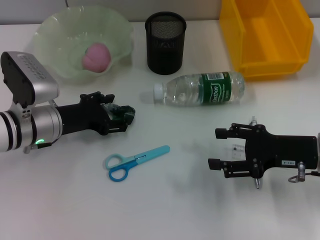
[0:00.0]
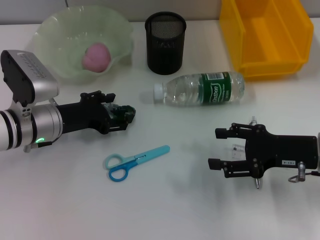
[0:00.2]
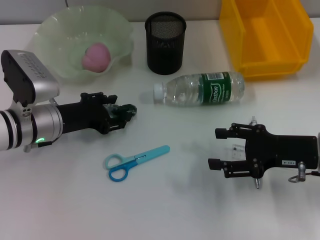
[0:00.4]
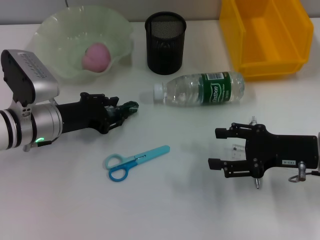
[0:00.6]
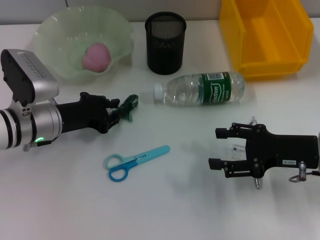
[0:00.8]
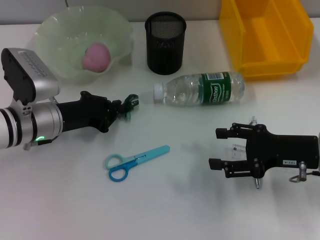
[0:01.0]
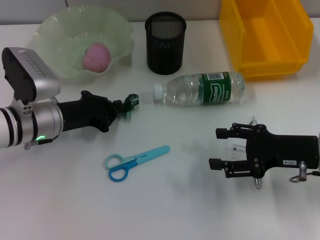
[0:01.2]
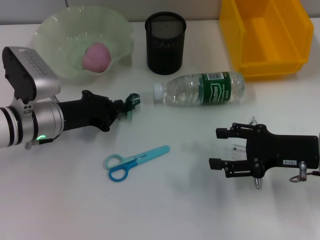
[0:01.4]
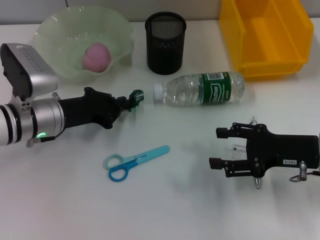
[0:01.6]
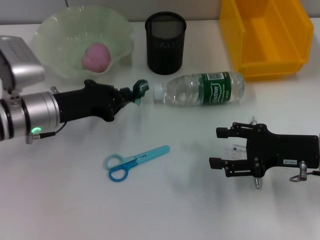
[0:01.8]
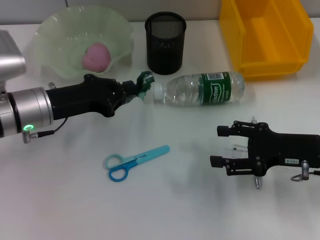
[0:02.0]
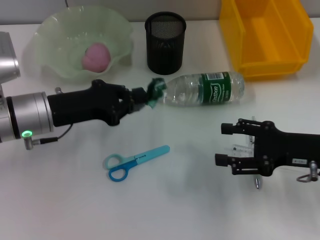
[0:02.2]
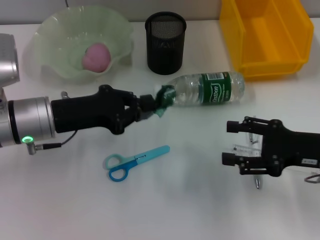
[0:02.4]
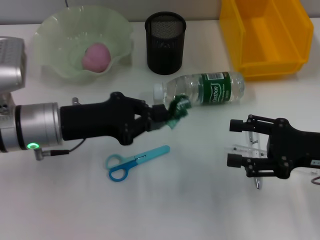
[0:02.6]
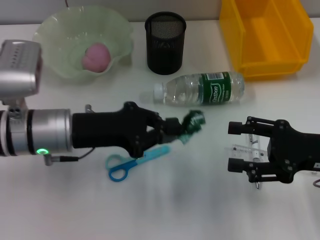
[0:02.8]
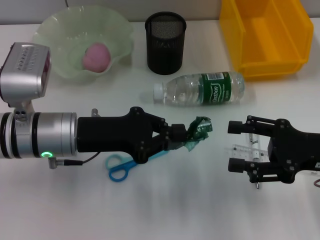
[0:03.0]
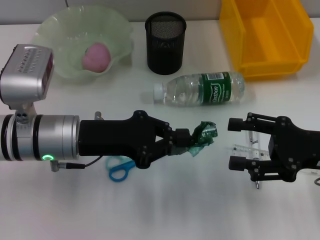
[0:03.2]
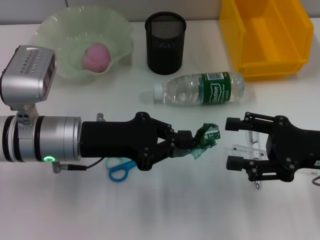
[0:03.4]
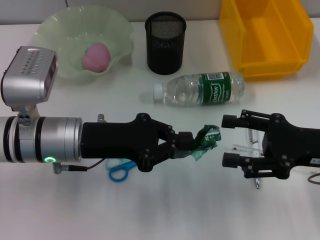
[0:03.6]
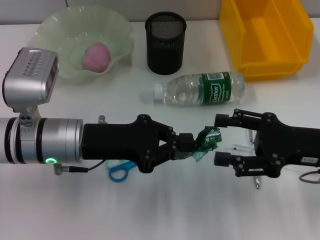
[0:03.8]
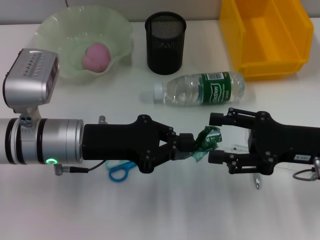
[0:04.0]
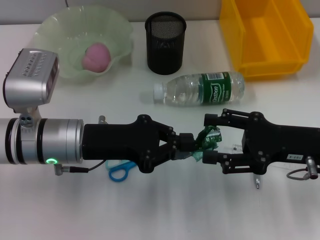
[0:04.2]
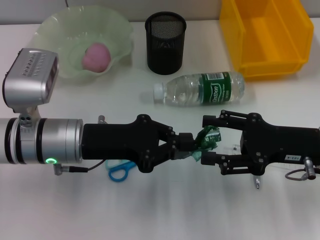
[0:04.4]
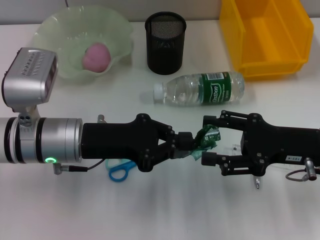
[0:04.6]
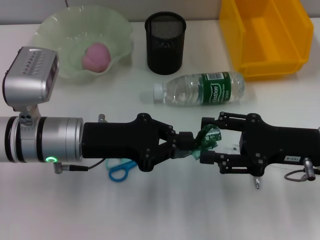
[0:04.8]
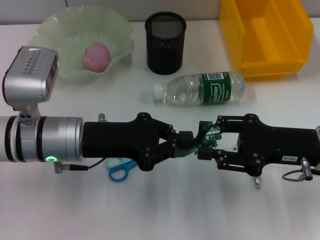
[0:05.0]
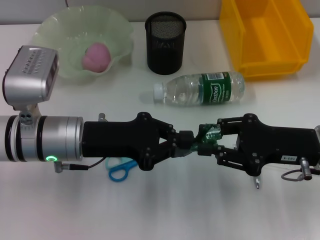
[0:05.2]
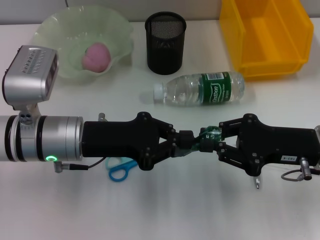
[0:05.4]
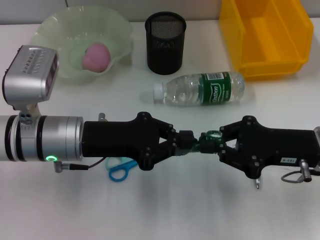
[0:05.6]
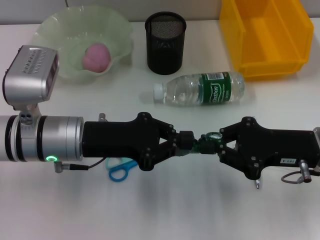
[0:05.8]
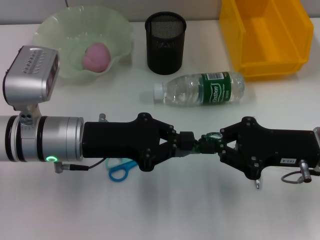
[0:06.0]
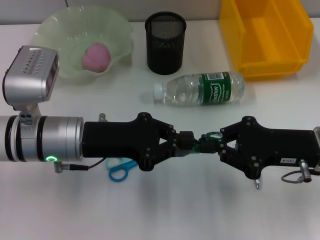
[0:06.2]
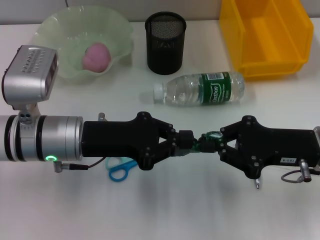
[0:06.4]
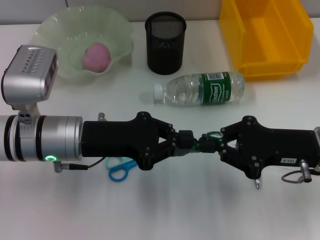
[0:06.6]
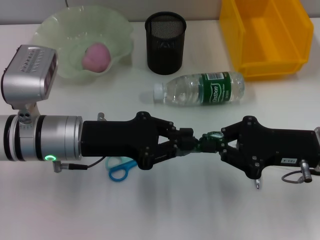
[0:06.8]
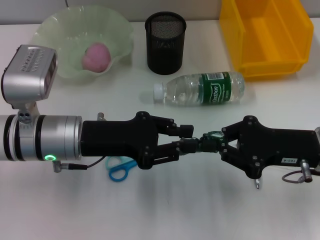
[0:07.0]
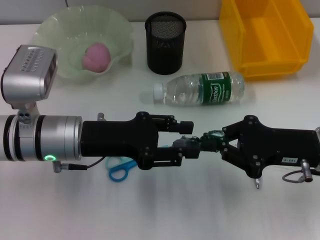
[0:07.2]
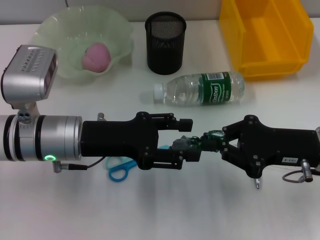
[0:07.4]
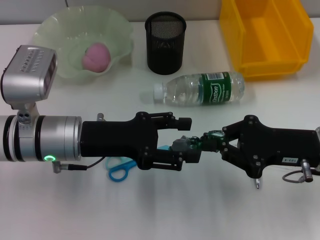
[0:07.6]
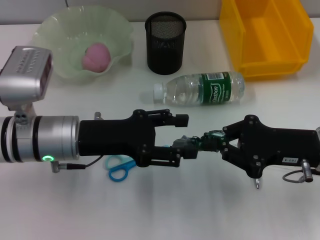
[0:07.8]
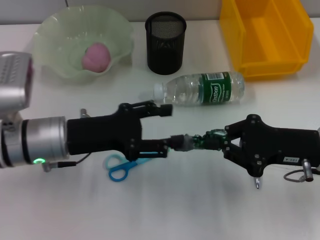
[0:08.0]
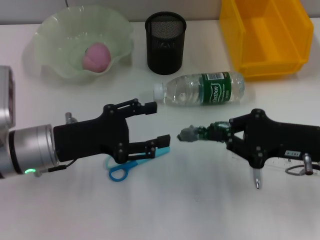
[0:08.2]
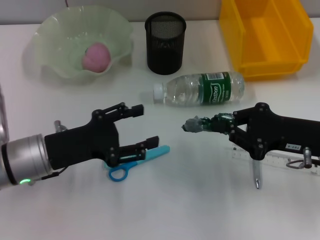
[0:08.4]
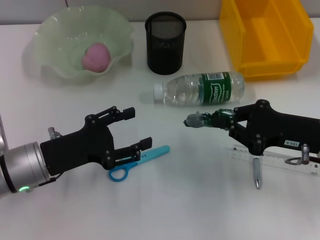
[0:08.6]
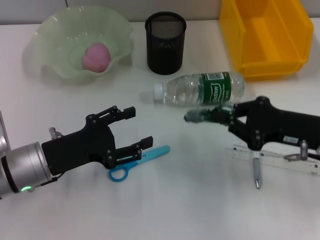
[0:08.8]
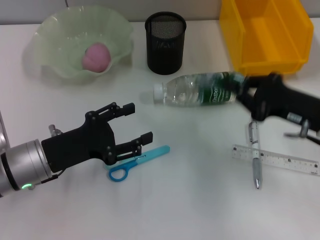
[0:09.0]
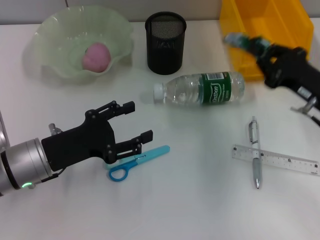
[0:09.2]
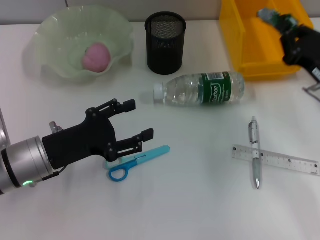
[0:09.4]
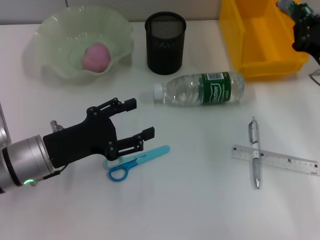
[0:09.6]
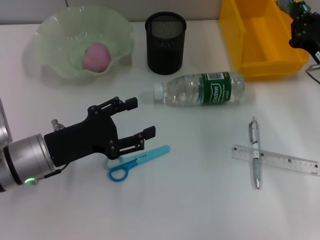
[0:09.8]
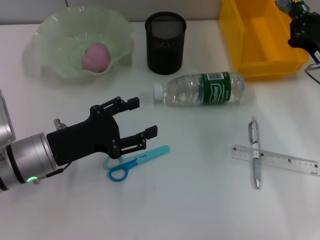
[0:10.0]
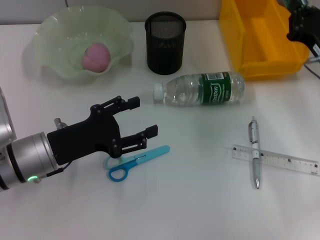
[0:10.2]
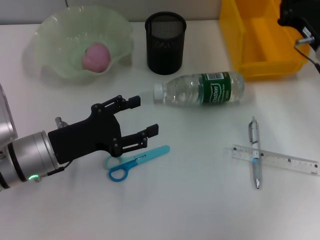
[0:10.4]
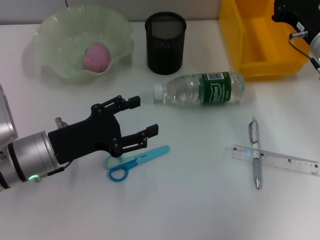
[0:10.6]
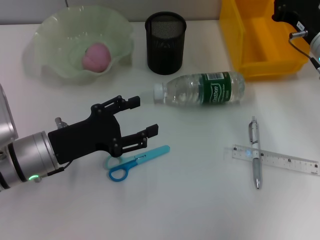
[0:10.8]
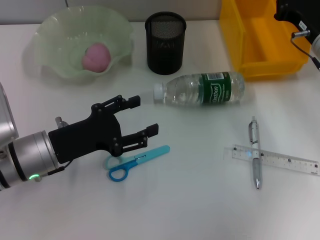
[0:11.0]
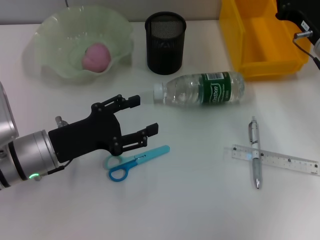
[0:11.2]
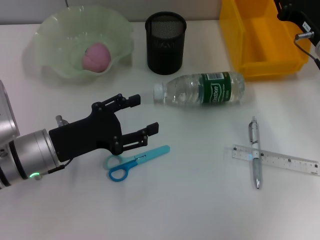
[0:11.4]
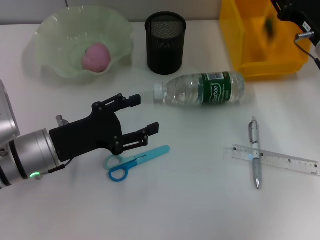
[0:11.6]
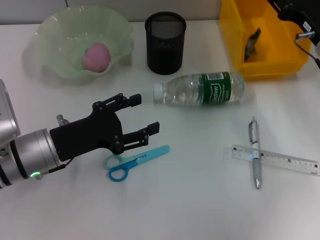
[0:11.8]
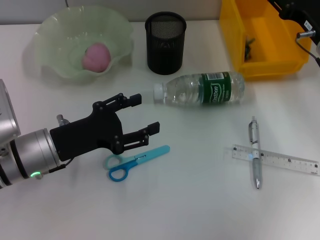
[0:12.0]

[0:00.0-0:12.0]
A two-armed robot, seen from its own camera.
Step, 0:01.2 to 0:07.6: Pass the plastic from the left hand to the right hand.
Step, 0:07.8 to 0:11.8: Place the plastic into the trash can with the right hand.
0:00.0 to 0:01.6: The left gripper closes its fingers.
0:01.6 to 0:03.0: The left gripper ends up roughly 5 cm from where it was.
0:03.0 to 0:04.4: The grippers make only small movements.
0:04.4 to 0:06.0: The right gripper closes its fingers.
0:06.0 to 0:07.6: The left gripper opens its fingers.
0:07.6 to 0:09.0: The left gripper travels to the left by roughly 5 cm.
0:09.0 to 0:10.4: The right gripper is displaced forward by about 10 cm.
0:10.4 to 0:12.0: The right gripper opens its fingers.

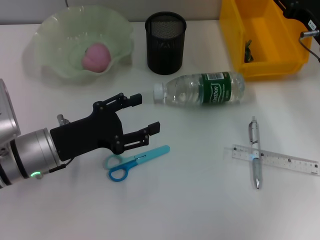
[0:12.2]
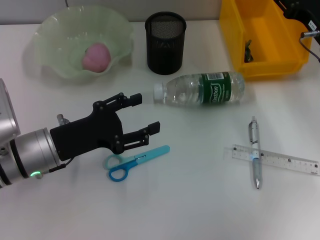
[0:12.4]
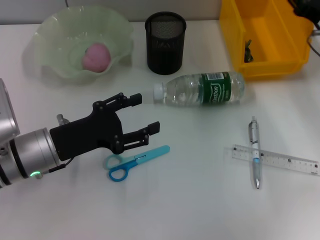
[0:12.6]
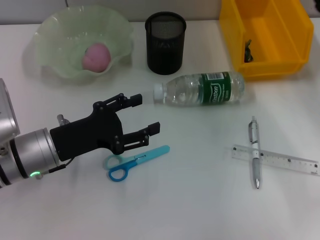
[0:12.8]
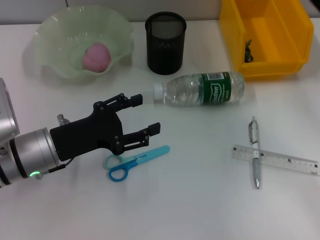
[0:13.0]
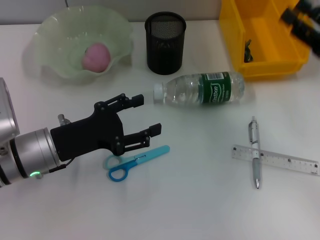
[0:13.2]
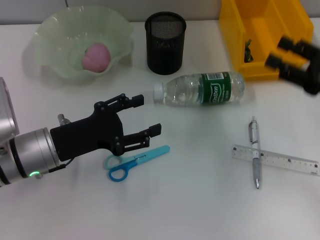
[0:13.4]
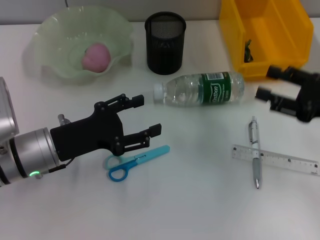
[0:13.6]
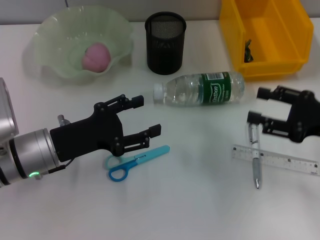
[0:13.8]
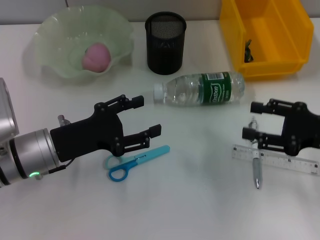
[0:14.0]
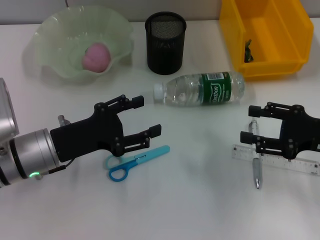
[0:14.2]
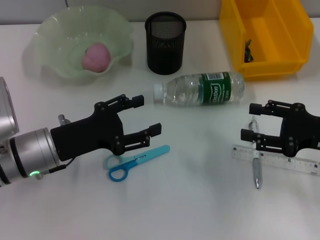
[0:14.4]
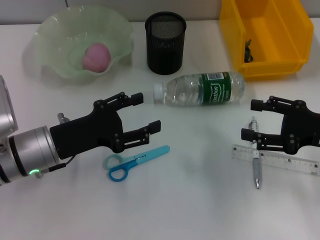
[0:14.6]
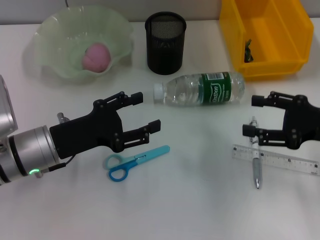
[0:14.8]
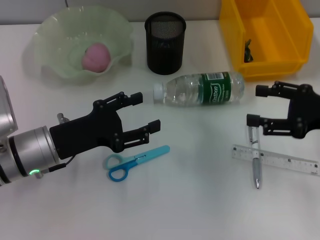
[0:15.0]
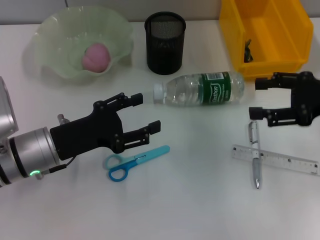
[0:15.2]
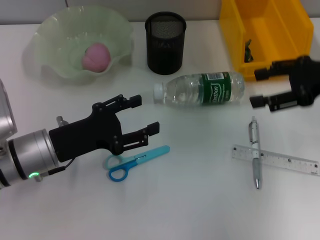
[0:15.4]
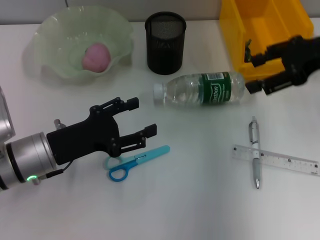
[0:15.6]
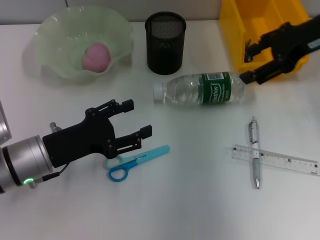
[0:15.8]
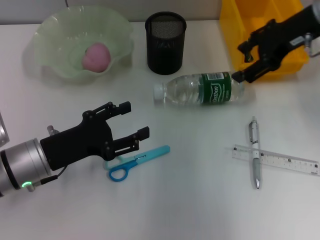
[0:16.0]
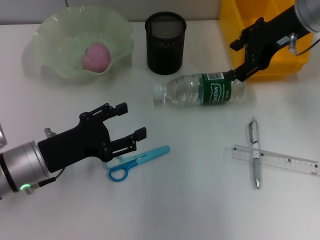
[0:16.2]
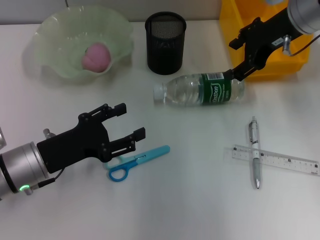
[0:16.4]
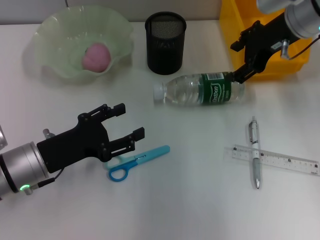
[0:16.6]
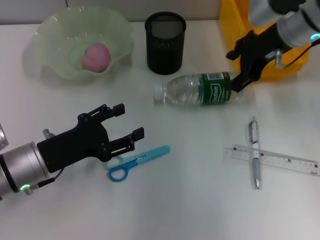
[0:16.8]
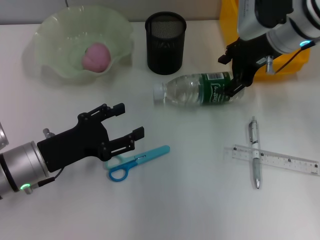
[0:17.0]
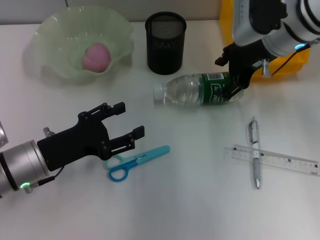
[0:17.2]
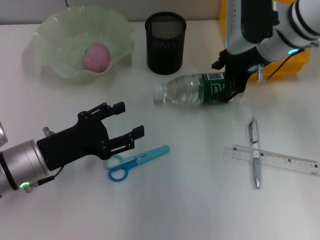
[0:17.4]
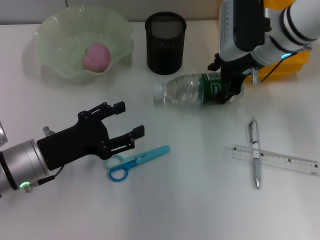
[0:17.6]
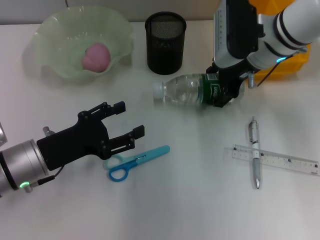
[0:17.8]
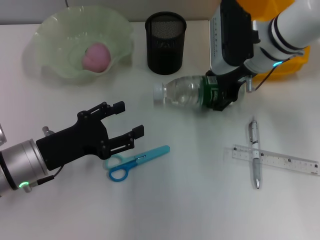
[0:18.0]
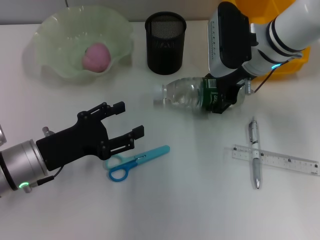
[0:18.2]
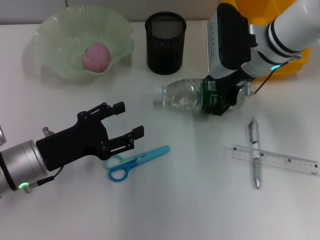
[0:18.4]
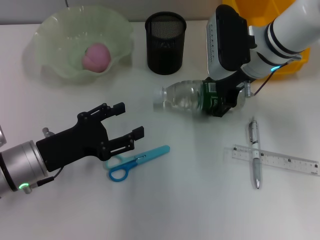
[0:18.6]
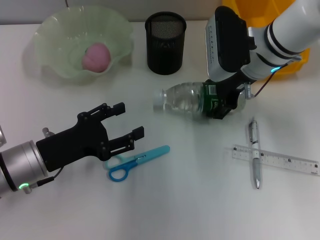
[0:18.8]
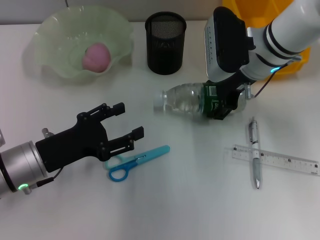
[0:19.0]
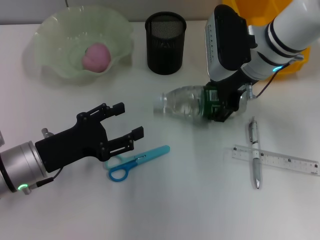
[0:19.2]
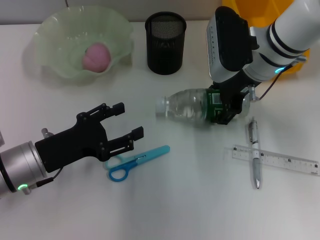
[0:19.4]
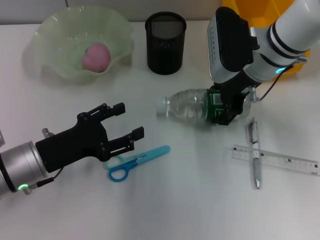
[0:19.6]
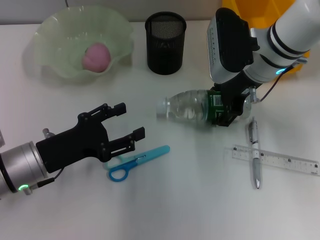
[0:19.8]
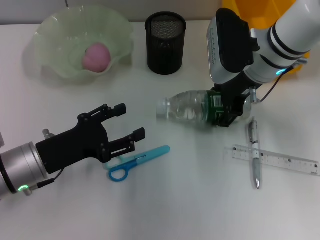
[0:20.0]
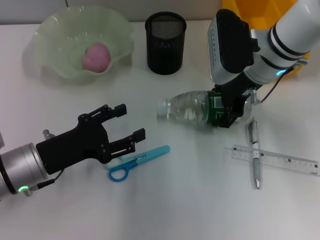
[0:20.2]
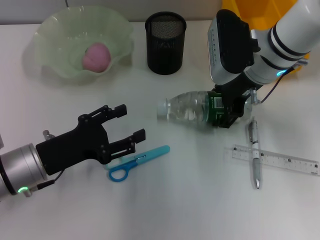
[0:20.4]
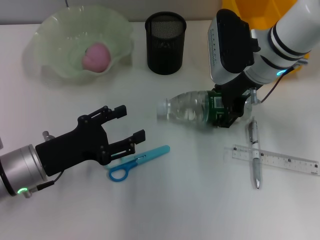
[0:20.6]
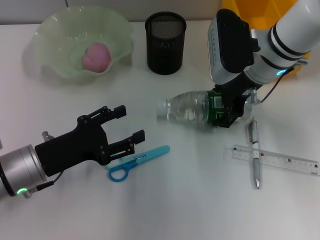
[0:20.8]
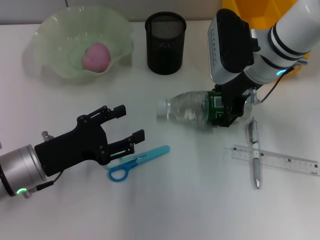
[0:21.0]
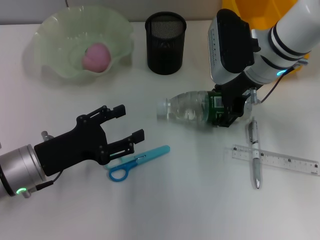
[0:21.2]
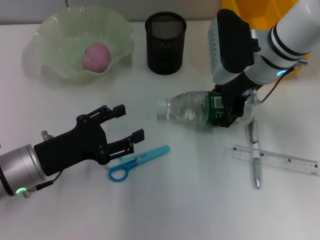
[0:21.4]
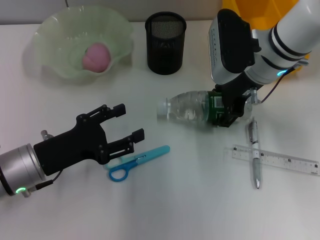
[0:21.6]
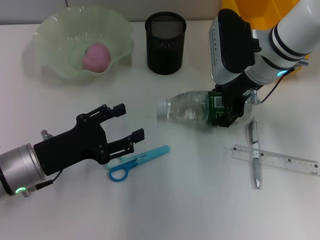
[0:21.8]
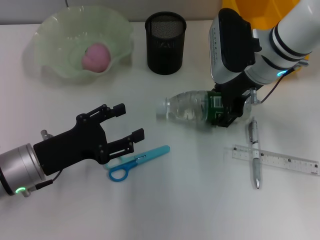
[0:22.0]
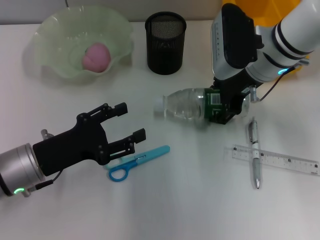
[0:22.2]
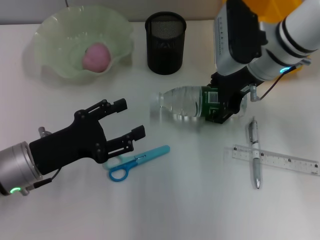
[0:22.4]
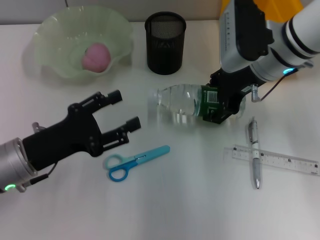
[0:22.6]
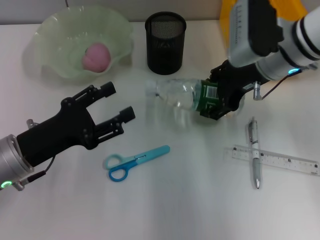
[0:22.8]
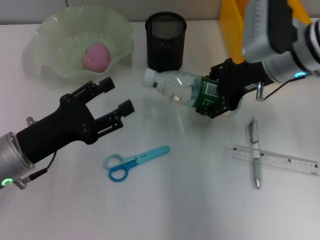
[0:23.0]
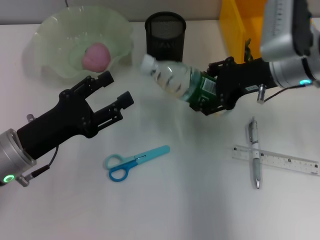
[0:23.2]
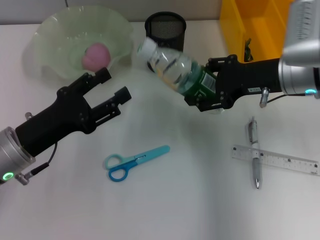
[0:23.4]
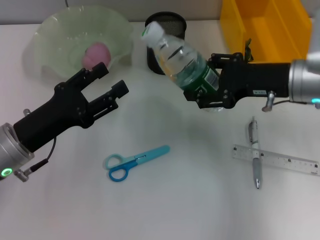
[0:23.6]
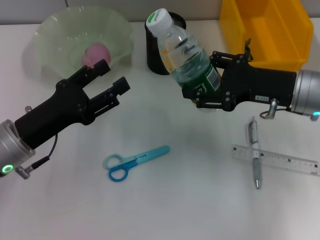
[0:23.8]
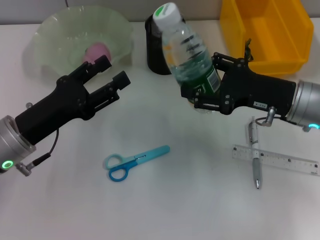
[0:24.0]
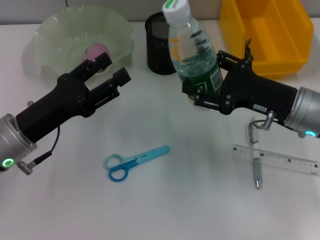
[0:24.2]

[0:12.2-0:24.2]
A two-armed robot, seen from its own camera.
Step, 0:12.2 to 0:21.4: Grab the water bottle with the right hand.
0:12.2 to 0:13.8: The right gripper is displaced backward by approximately 10 cm.
0:13.8 to 0:15.2: The right gripper travels upward by approximately 5 cm.
0:15.2 to 0:16.6: The right gripper is displaced forward, to the left and upward by about 15 cm.
0:16.6 to 0:18.2: The right gripper shifts some 10 cm downward and to the left.
0:18.2 to 0:19.8: The grippers move only a little.
0:19.8 to 0:21.2: Both grippers stay about where they are.
0:21.2 to 0:22.6: The grippers move only a little.
0:22.6 to 0:24.2: The right gripper goes roughly 15 cm backward, downward and to the right.
